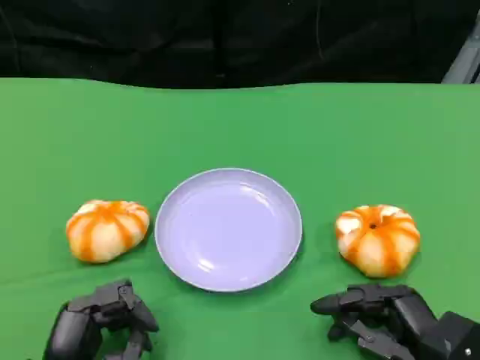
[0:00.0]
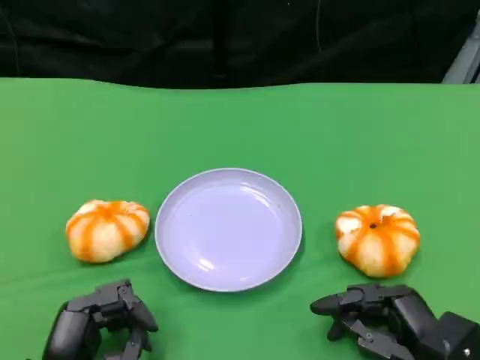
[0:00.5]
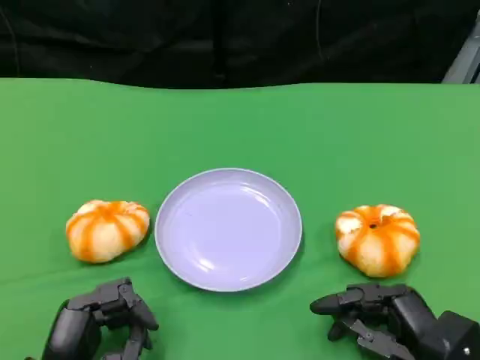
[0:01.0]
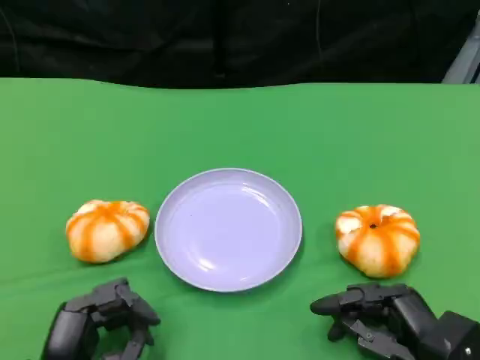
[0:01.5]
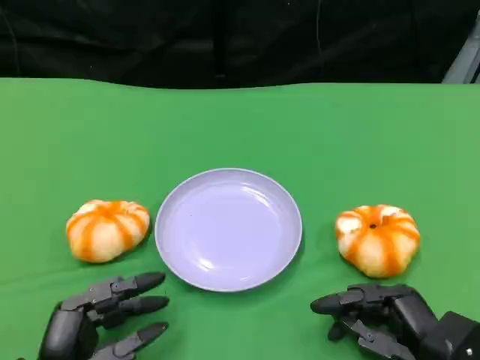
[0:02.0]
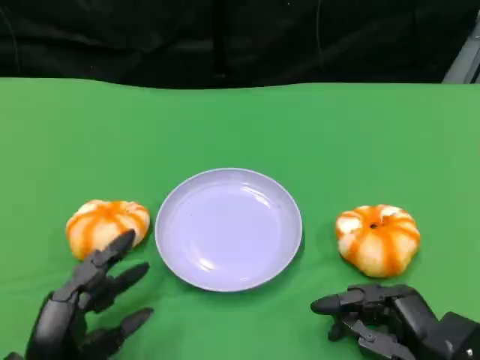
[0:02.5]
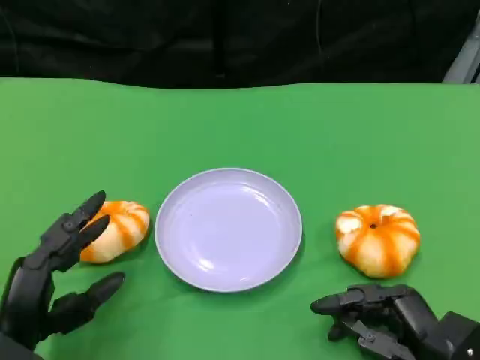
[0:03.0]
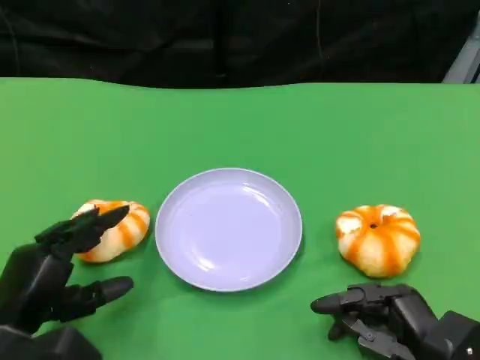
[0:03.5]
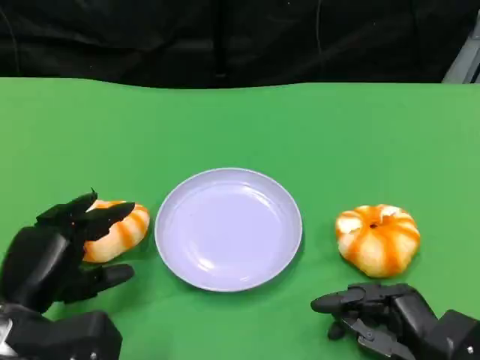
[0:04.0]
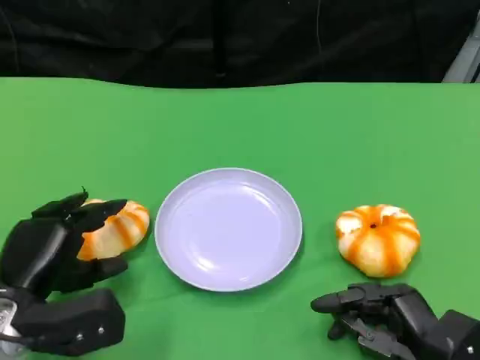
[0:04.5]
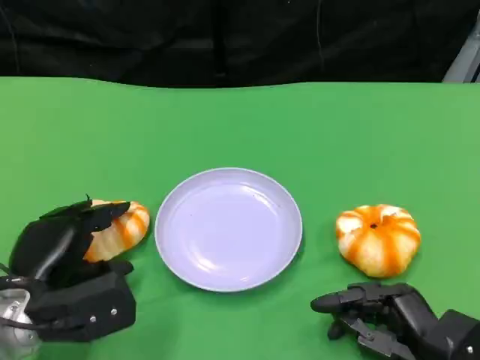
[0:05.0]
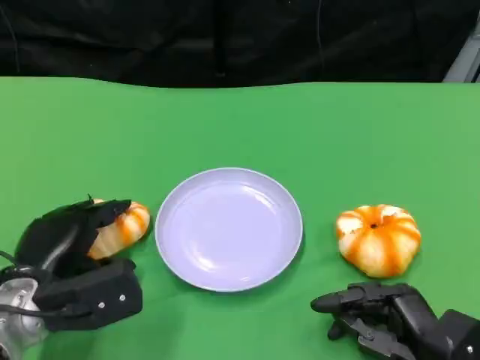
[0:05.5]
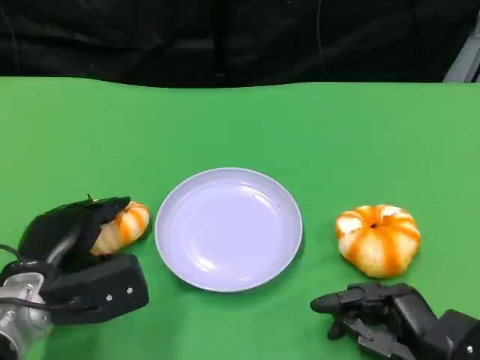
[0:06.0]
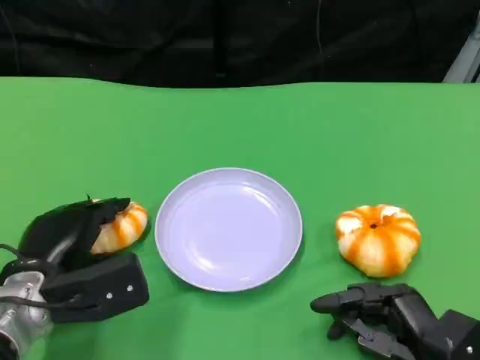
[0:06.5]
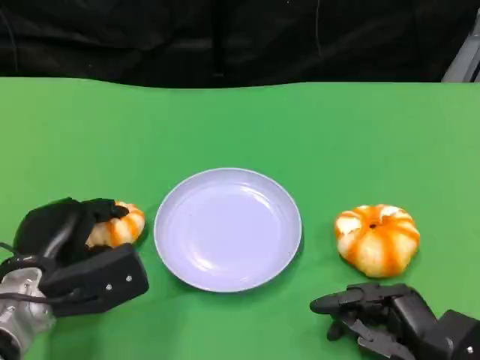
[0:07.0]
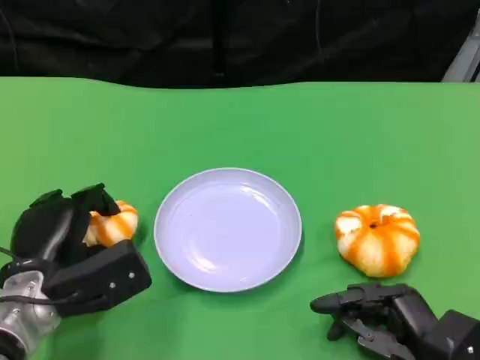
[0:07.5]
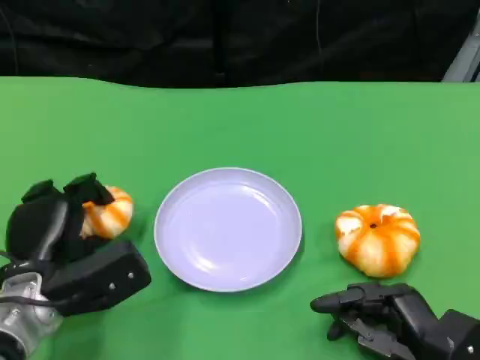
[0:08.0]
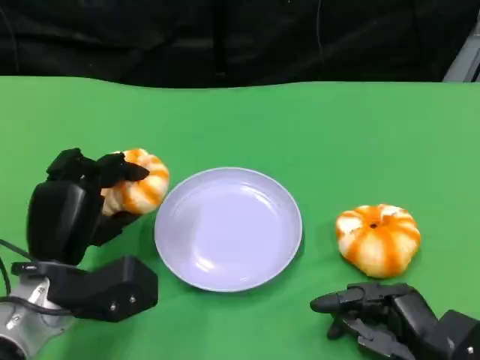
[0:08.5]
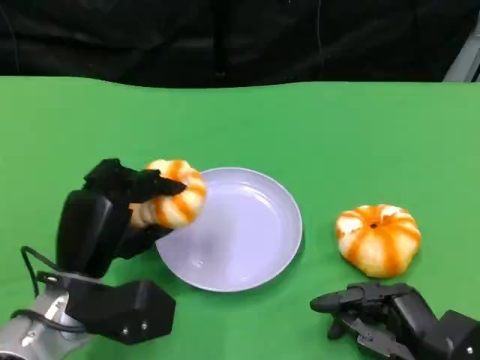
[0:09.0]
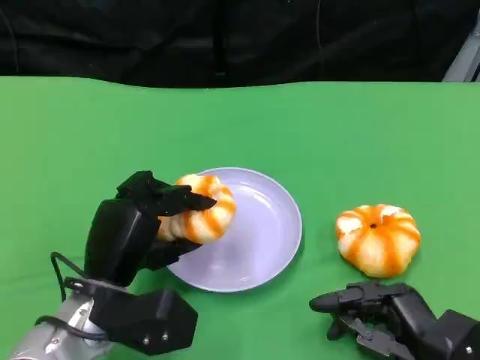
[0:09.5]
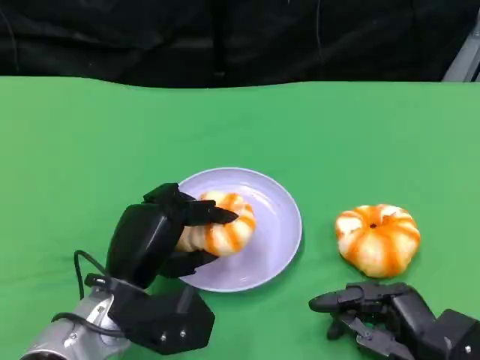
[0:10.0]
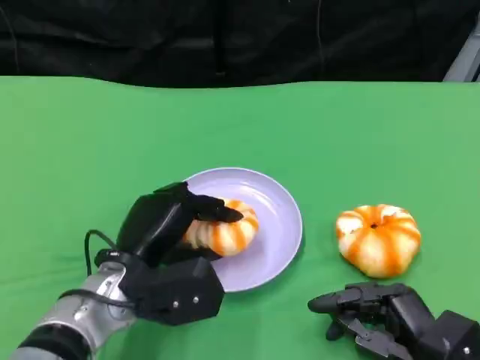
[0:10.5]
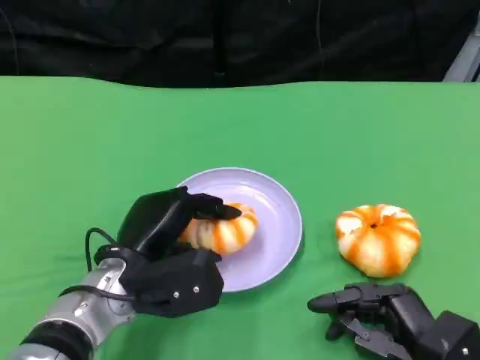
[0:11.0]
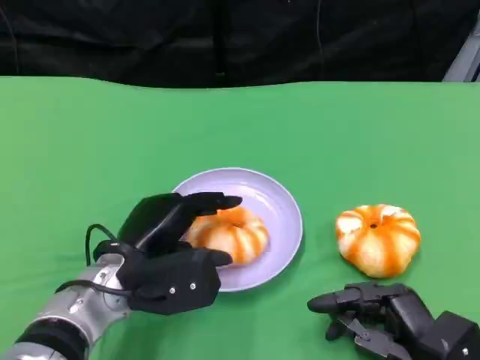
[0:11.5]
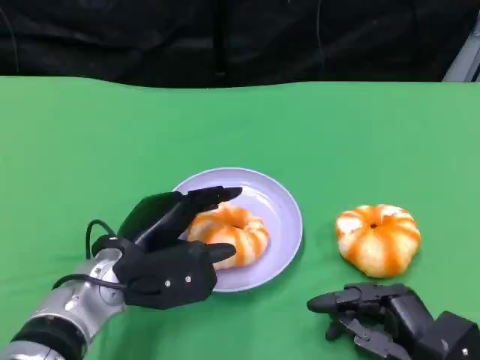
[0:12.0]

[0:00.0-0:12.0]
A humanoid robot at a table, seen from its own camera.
Task of the whole recording: Grasp the bread from the table and place it into the plate.
0:00.0 to 0:02.0: Neither hand changes place.
0:02.0 to 0:04.0: The left hand travels forward by about 5 cm.
0:08.0 to 0:10.0: The left hand heads to the right, covering approximately 5 cm.

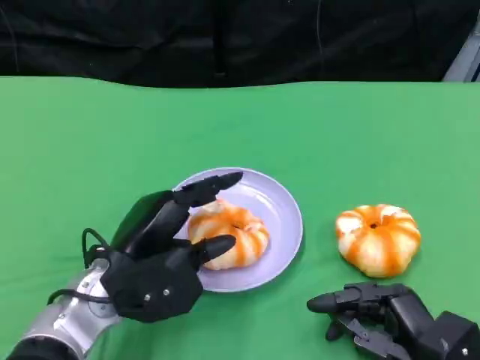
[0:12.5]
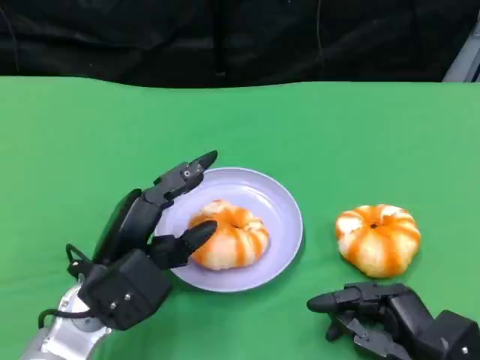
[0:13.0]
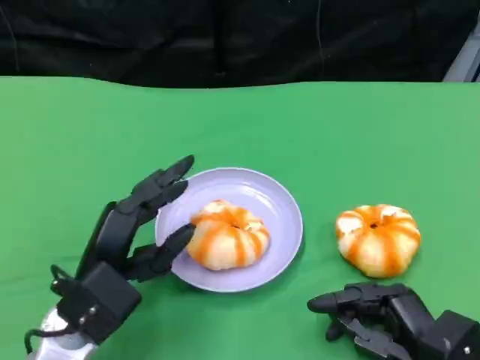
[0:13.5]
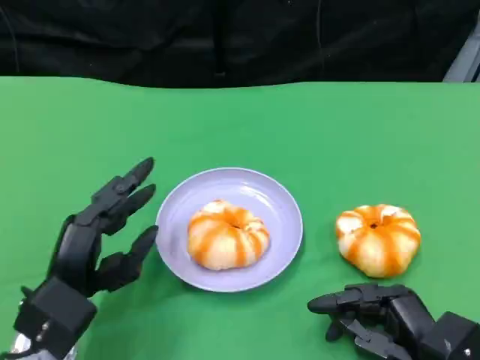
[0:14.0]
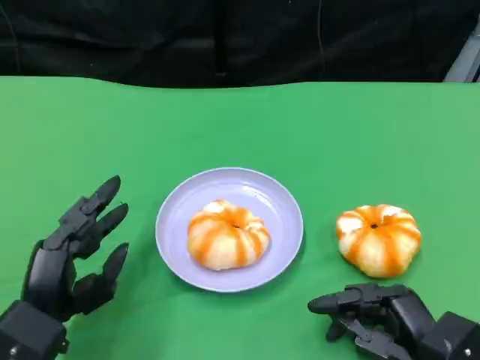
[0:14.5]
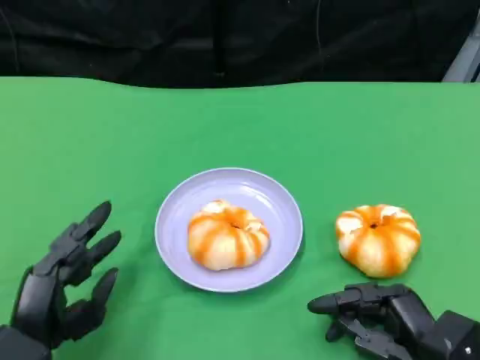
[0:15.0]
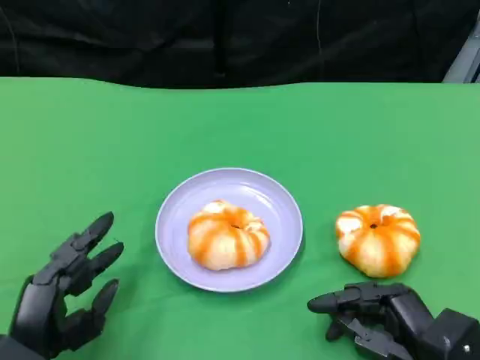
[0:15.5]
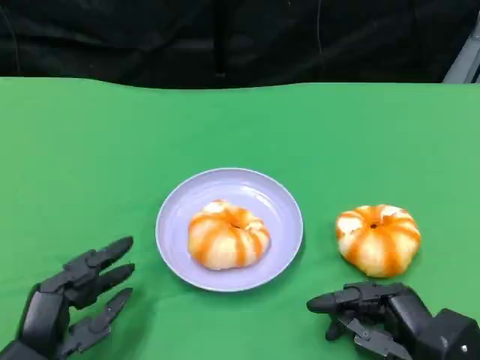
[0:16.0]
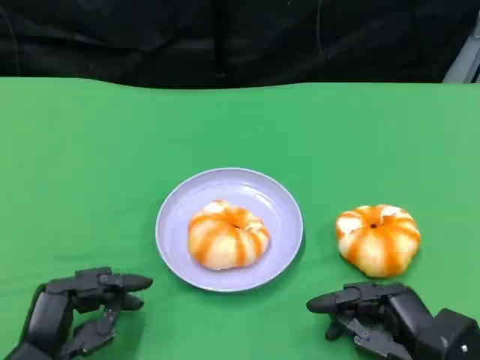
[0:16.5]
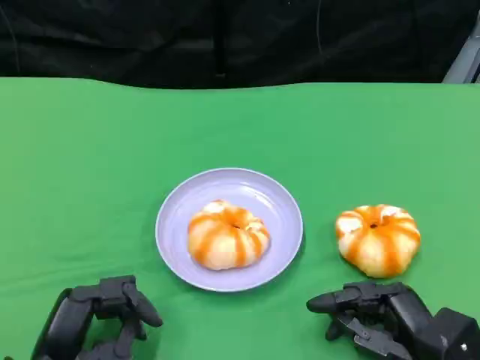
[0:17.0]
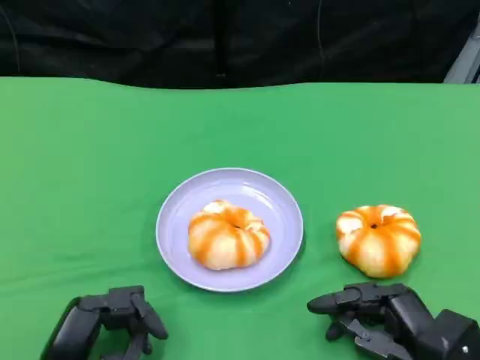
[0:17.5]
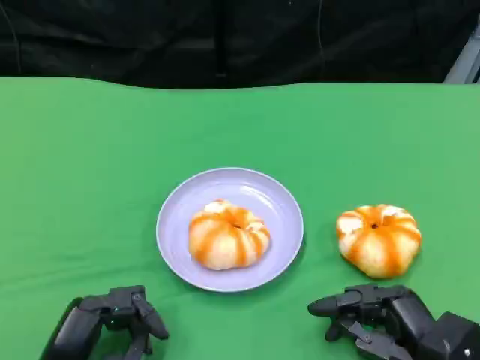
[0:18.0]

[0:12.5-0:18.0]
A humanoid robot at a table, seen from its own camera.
Task of the whole recording: Grasp the bread from the table and place it into the plate.
0:12.5 to 0:14.5: The left hand heads to the left and backward, covering roughly 10 cm.
0:14.5 to 0:18.0: The hands move only a little.

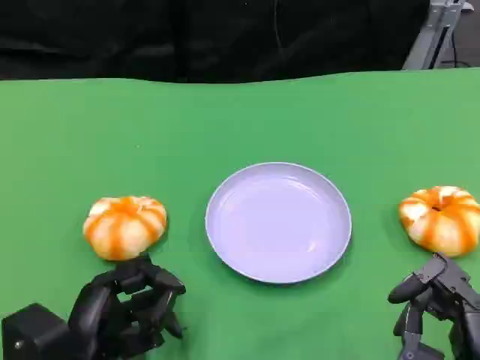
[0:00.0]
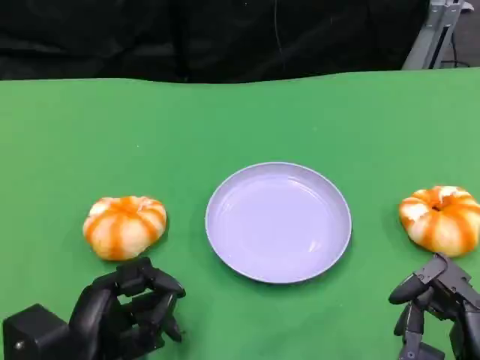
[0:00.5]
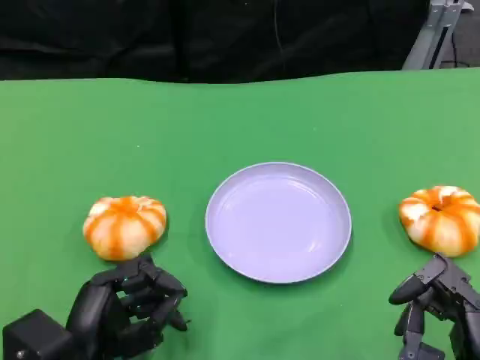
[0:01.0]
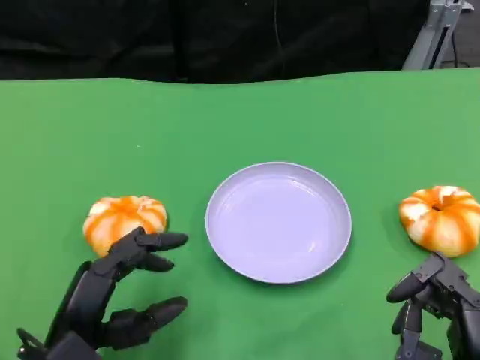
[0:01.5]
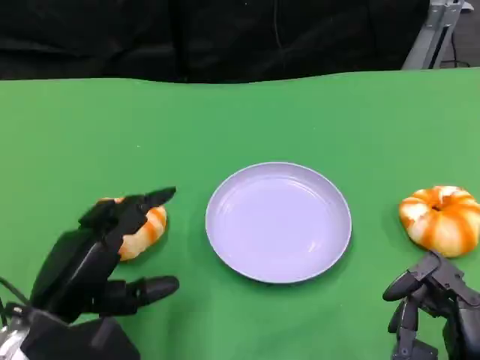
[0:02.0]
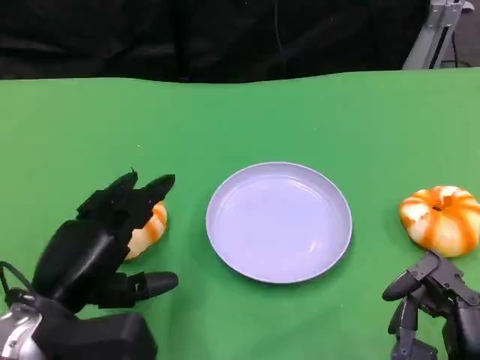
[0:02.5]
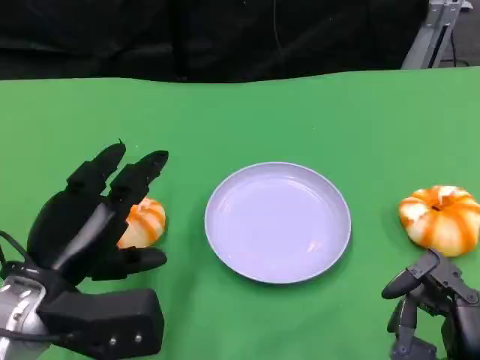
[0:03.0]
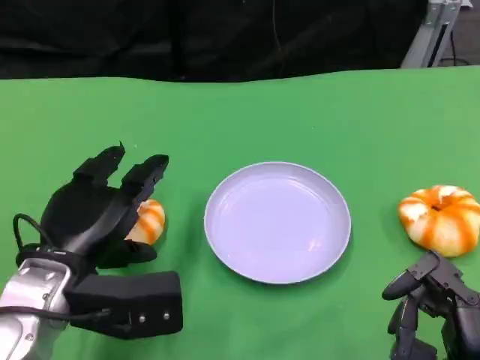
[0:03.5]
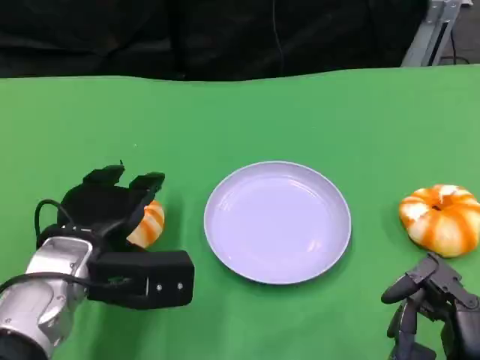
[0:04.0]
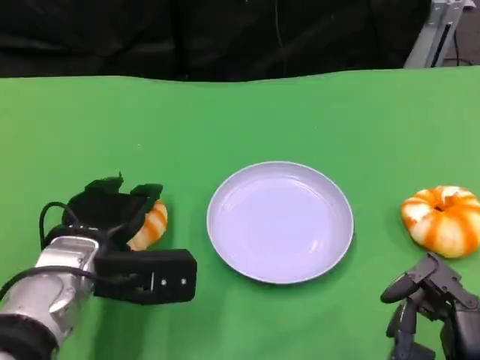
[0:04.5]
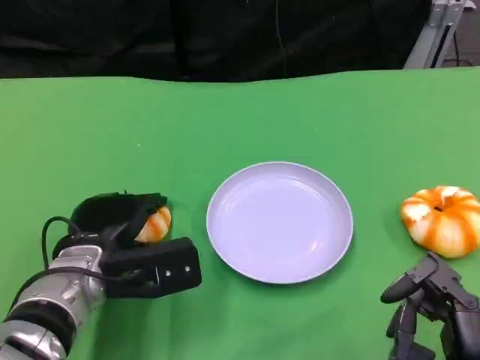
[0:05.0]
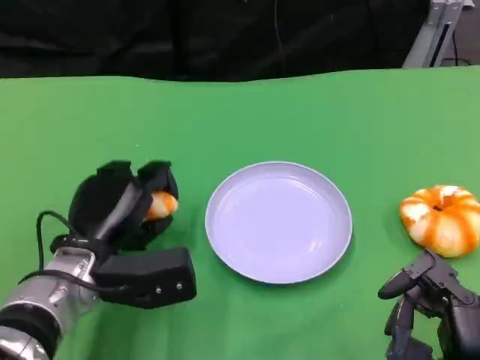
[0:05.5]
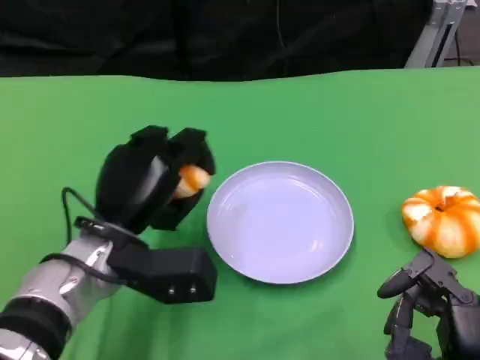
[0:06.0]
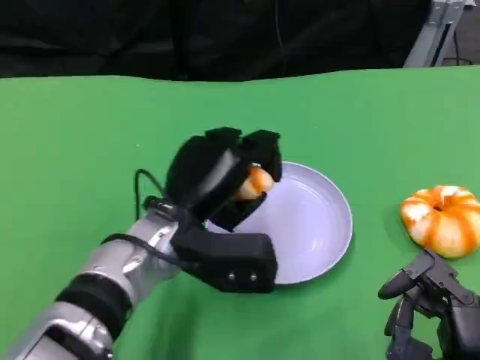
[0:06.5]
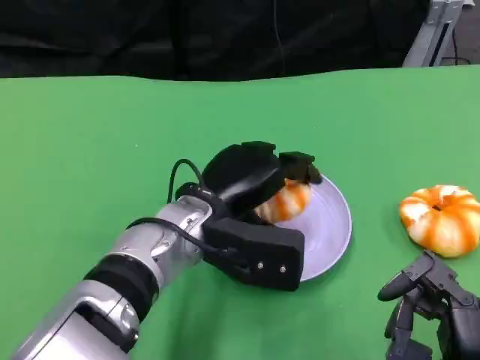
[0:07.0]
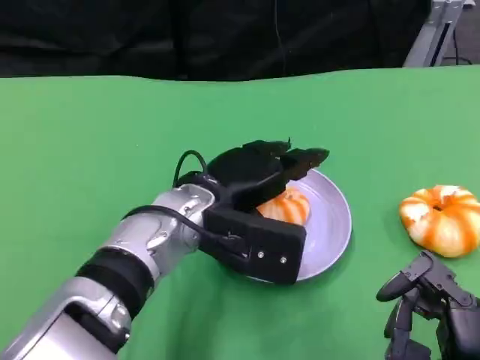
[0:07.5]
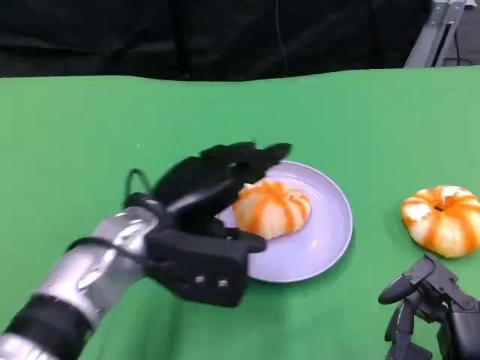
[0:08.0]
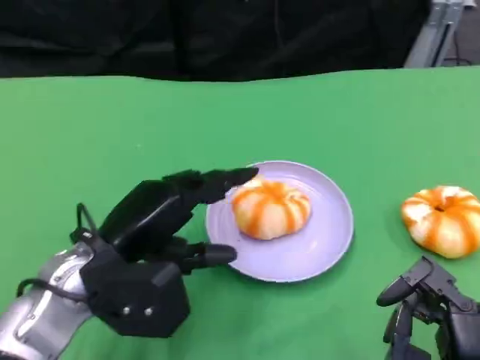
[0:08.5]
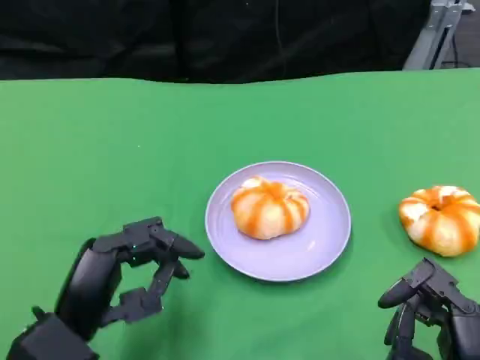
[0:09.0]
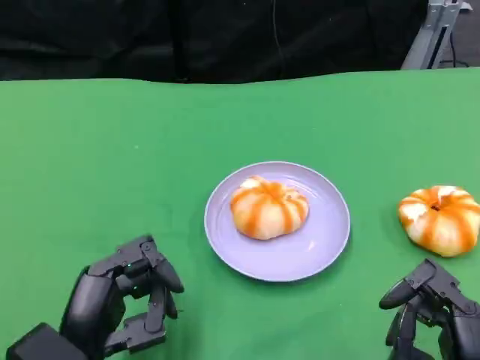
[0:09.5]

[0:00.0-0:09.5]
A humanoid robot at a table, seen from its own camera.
Task of the whole recording: Grasp the bread from the table and place it into the plate.
0:00.0 to 0:02.0: The left hand changes place by about 5 cm.
0:02.0 to 0:04.0: The left hand heads forward, covering approximately 5 cm.
0:05.5 to 0:07.5: The left hand heads to the right and upward, covering roughly 15 cm.
0:07.5 to 0:09.5: The left hand shifts approximately 20 cm backward, to the left and downward.
